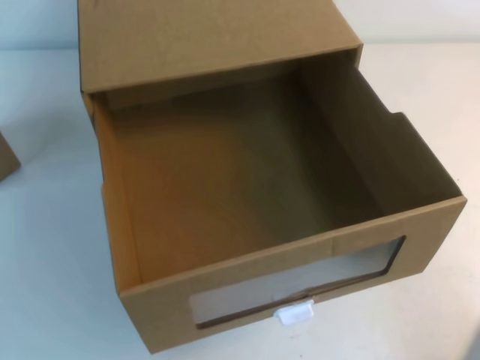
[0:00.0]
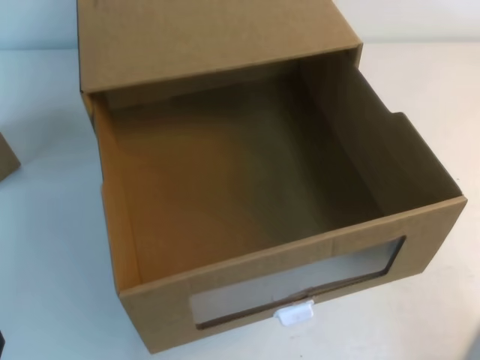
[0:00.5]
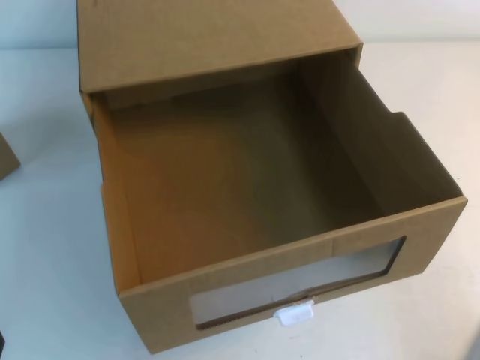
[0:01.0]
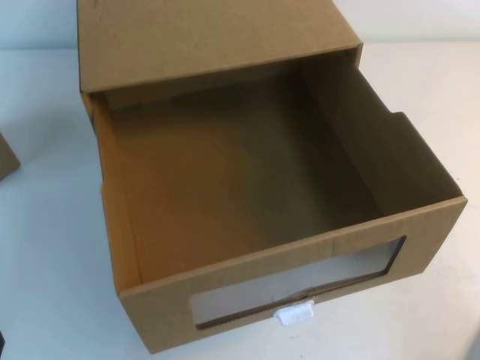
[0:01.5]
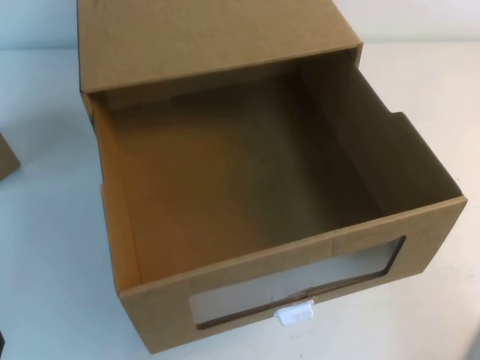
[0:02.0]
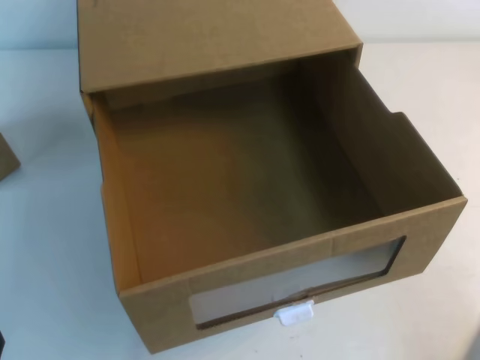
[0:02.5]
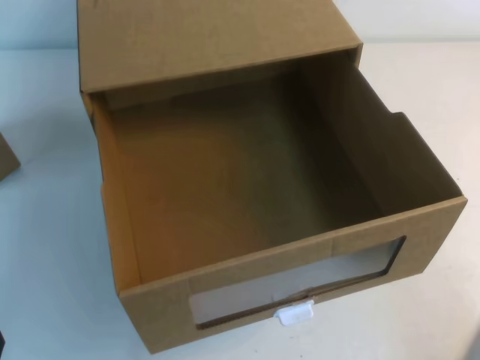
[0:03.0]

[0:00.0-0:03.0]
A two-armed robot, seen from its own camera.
Task of the whole recording: open the shoebox on the table.
1.5 to 3.0 s: Neither gripper changes place.

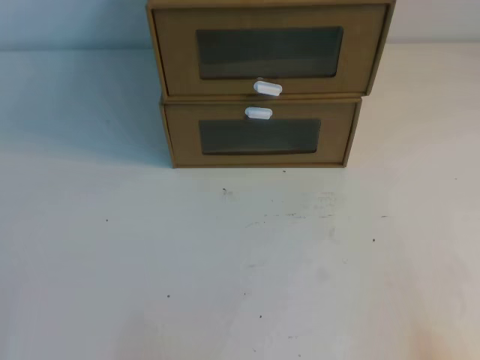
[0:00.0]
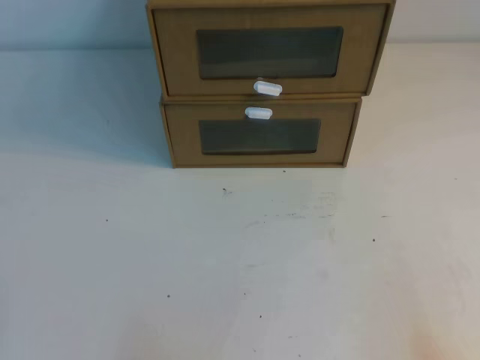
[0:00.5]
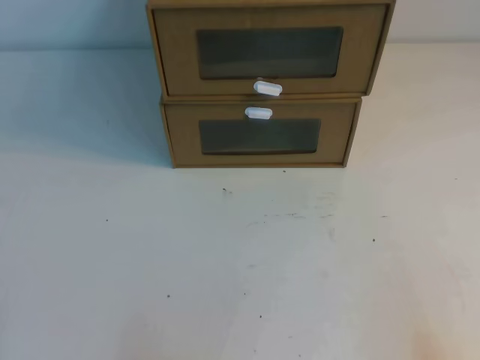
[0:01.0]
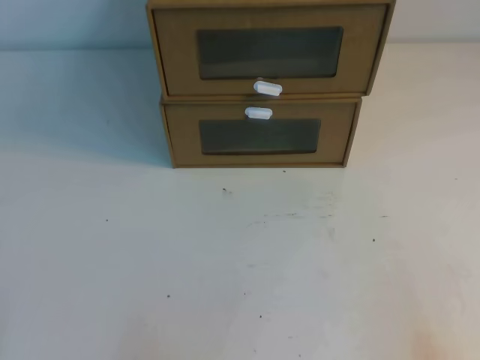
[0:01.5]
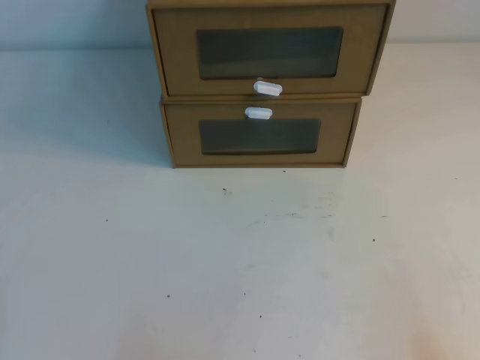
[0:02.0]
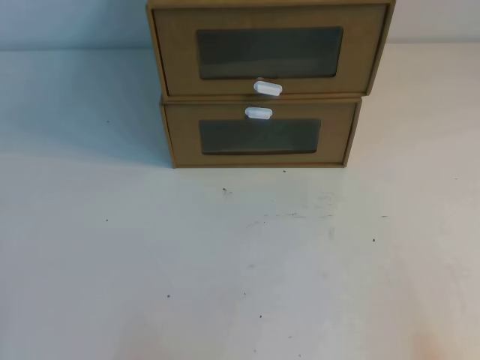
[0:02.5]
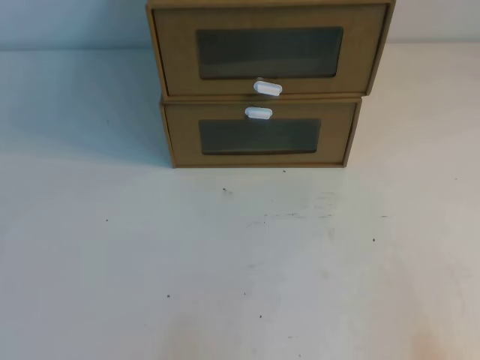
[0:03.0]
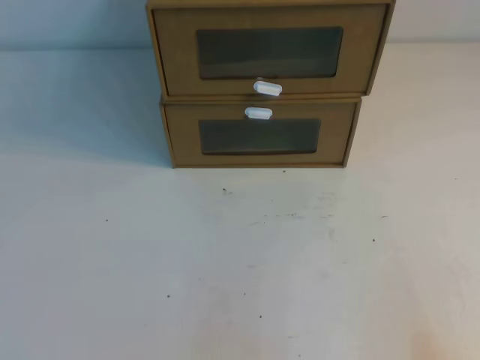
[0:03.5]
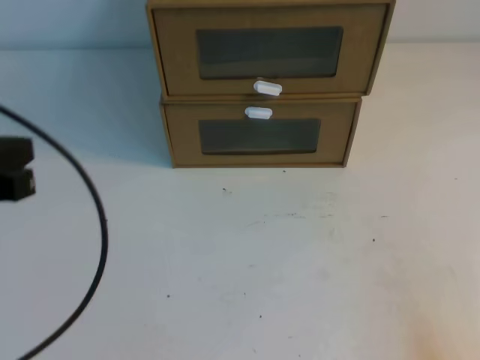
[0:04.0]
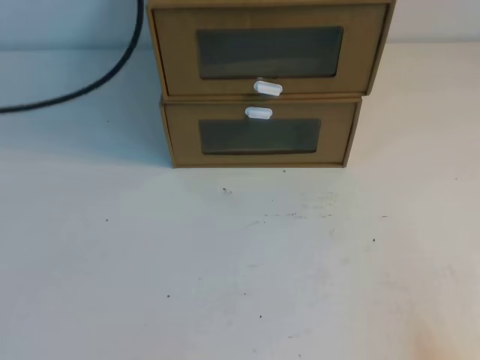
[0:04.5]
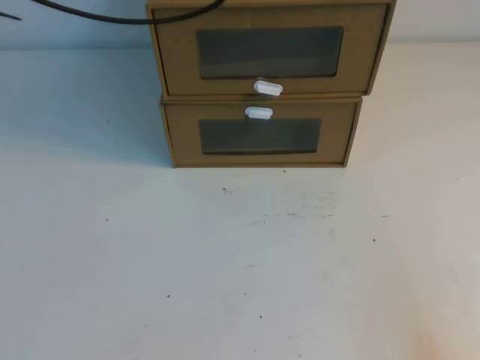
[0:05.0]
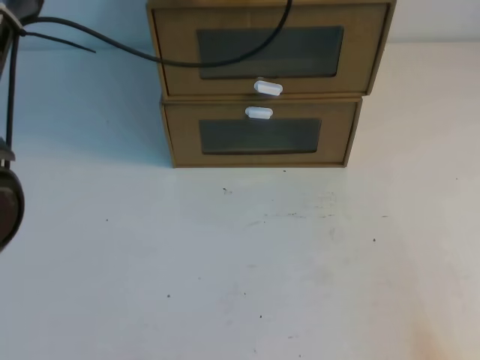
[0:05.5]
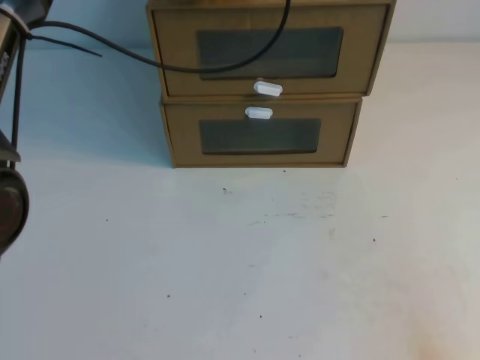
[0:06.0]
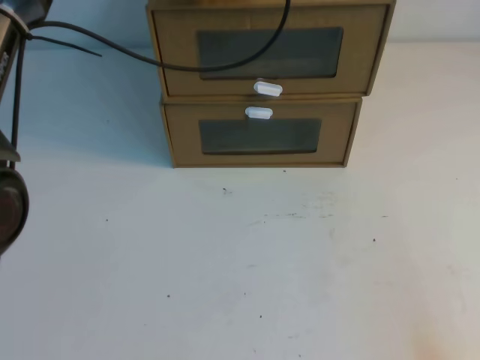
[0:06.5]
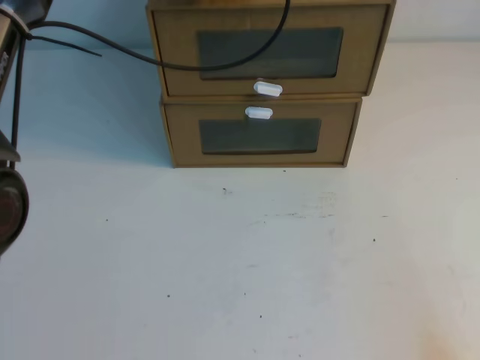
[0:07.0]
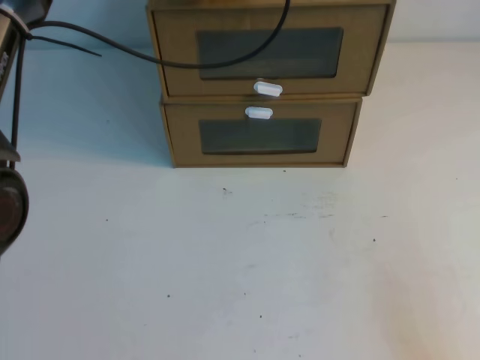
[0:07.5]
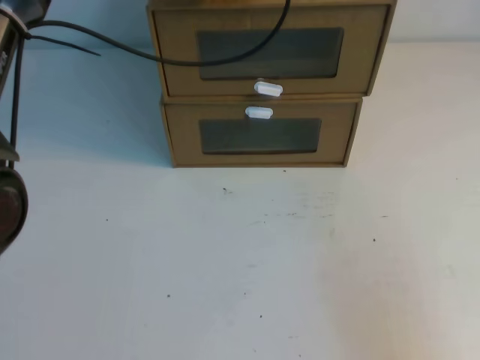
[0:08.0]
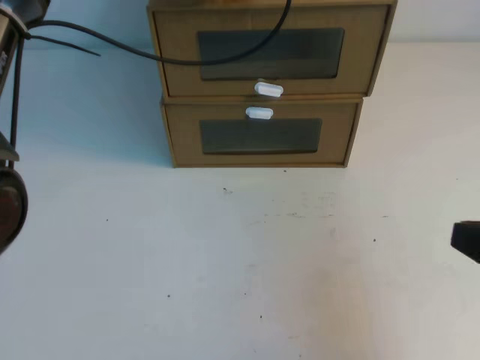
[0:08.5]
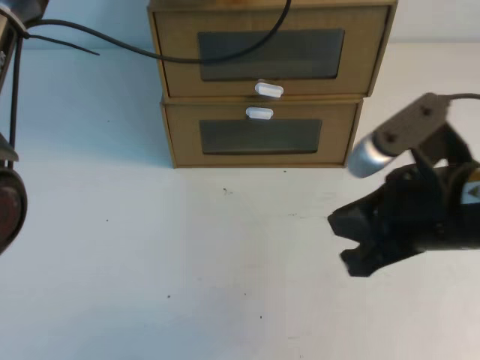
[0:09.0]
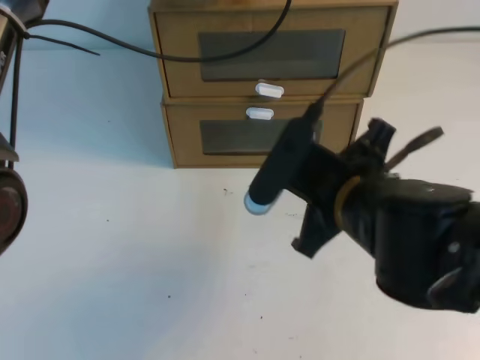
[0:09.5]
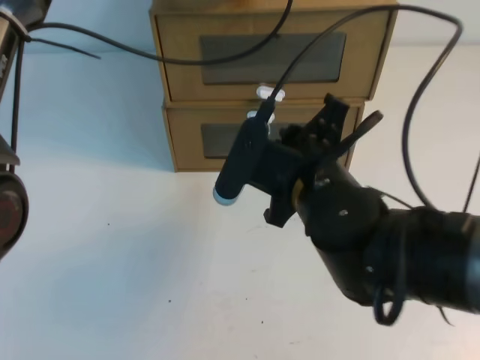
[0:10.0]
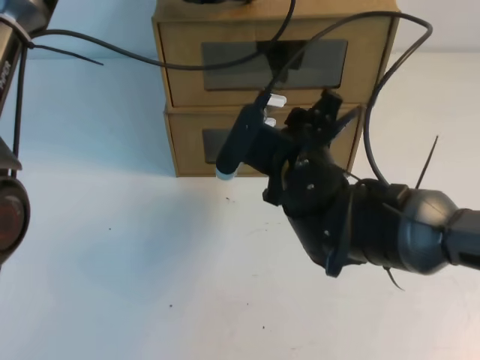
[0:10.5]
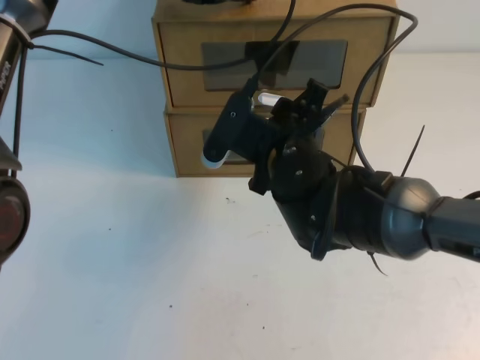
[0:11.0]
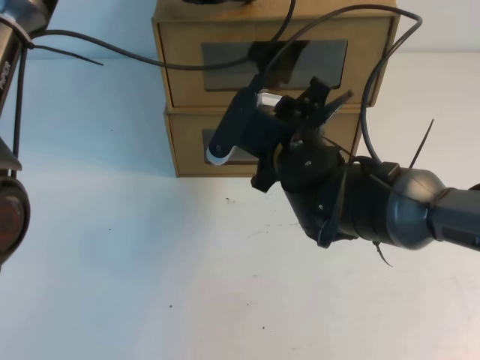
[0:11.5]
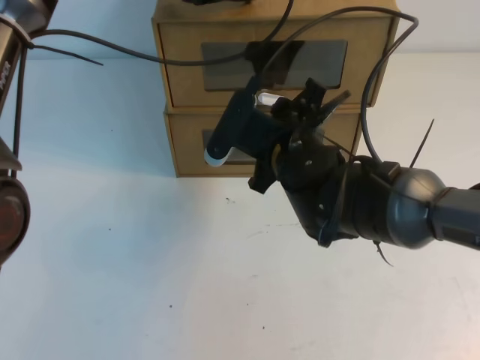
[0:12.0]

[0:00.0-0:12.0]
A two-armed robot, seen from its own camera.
Task of the whole recording: open the shoebox on the table.
2.0 to 4.0 s: The left gripper shifts roughly 15 cm upward and forward.
4.0 to 6.0 s: The left gripper moves forward and to the right, roughly 35 cm.
8.0 to 10.0 s: The right gripper goes roughly 30 cm to the left and forward.
10.0 to 12.0 s: The right gripper travels forward by approximately 10 cm, and opens up.

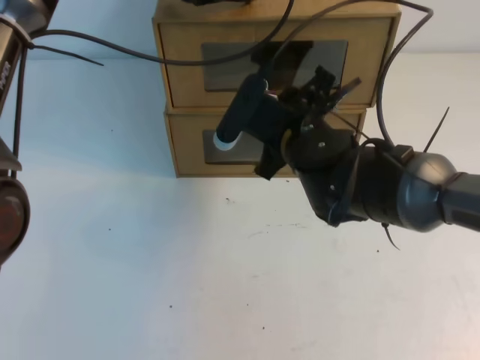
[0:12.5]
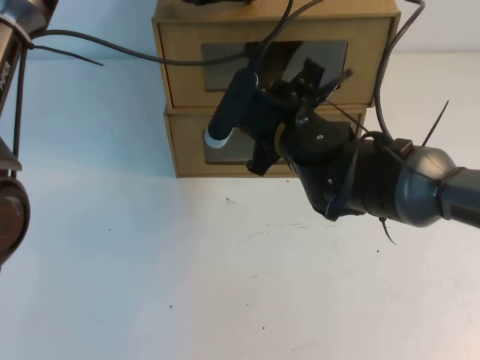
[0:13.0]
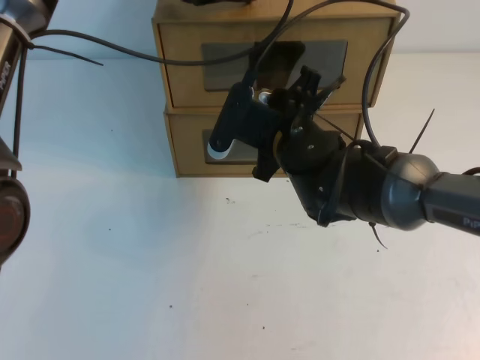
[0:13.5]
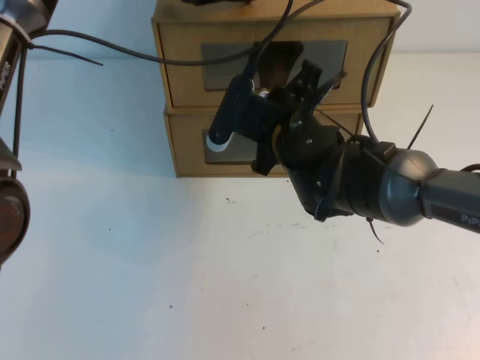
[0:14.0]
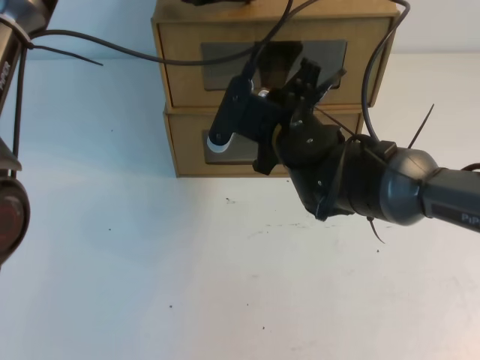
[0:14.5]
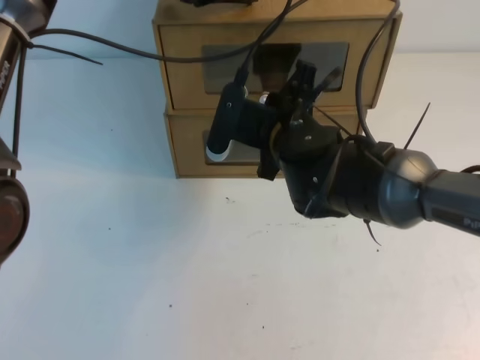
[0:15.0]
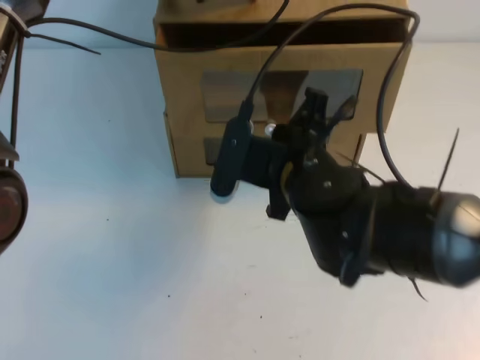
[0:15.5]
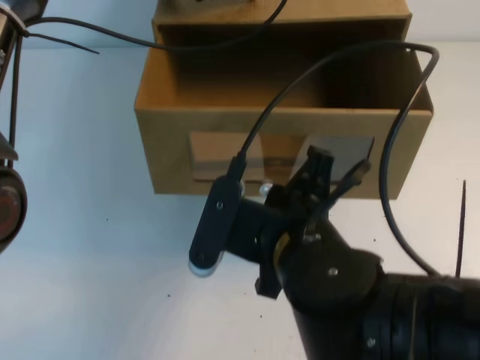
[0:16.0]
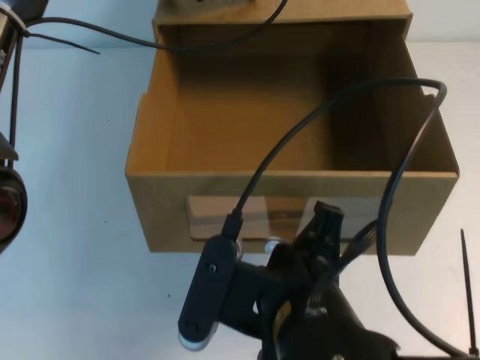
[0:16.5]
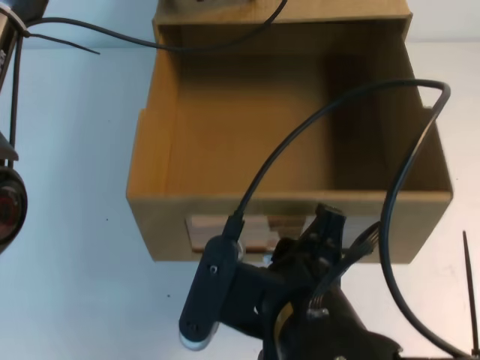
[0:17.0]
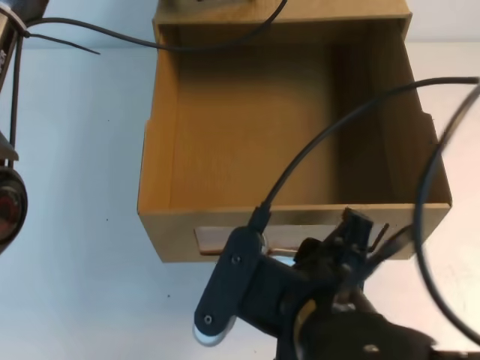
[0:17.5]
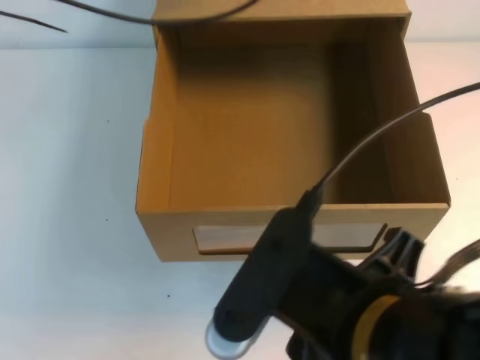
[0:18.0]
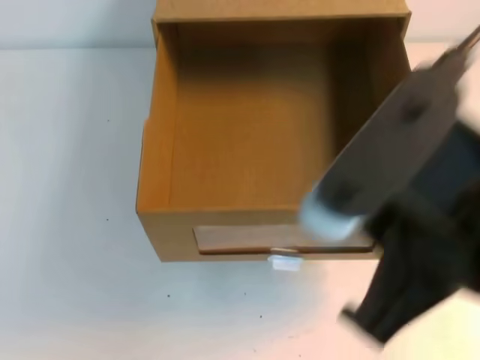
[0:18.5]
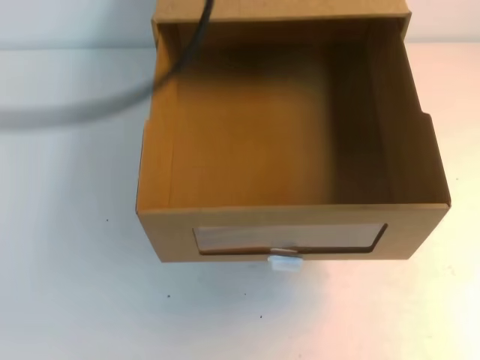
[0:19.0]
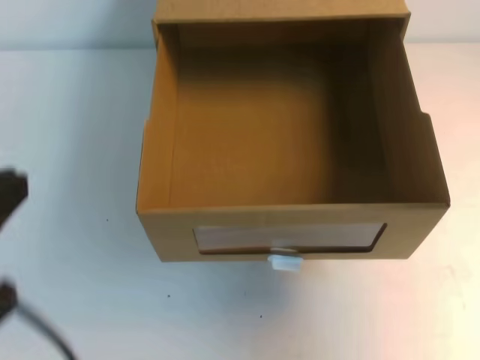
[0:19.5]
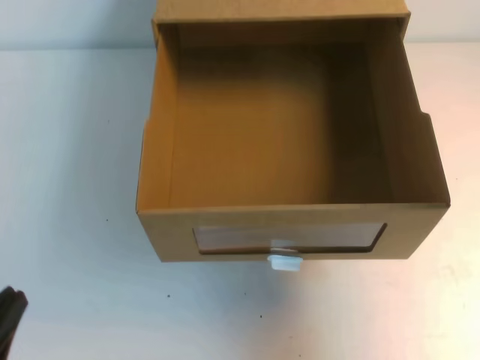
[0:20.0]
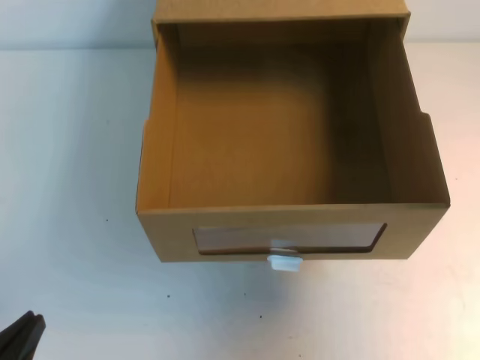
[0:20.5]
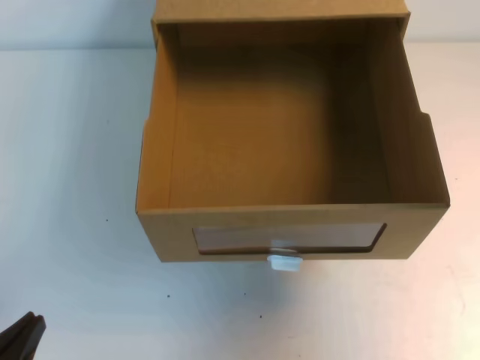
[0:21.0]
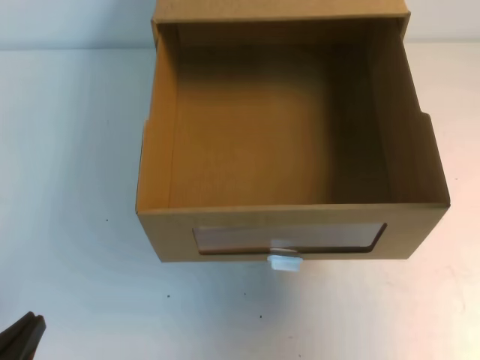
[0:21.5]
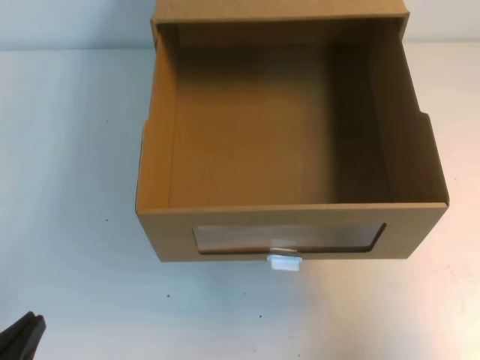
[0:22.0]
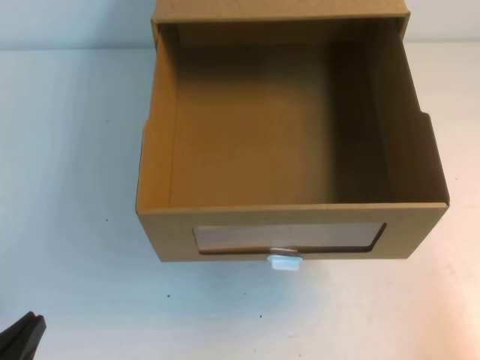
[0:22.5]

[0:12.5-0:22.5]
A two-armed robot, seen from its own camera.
Task of the whole recording: open the shoebox on the table.
12.5 to 14.5 s: The right gripper closes up.
14.5 to 16.5 s: The right gripper travels backward by approximately 20 cm.
16.5 to 18.5 s: The right gripper heads upward, to the right and backward, covering about 15 cm, and opens up; the left gripper is displaced upward and backward by roughly 15 cm.
18.5 to 20.5 s: The right gripper heads to the right and forward, covering roughly 20 cm, and closes up. Meanwhile the left gripper is displaced downward, backward and to the left by roughly 50 cm.
20.5 to 22.5 s: The right gripper goes about 25 cm downward and backward.

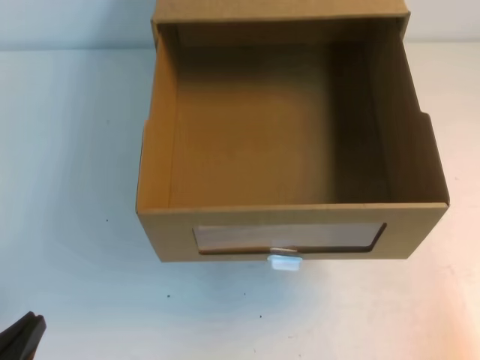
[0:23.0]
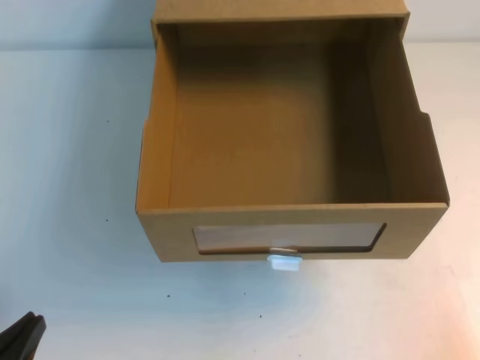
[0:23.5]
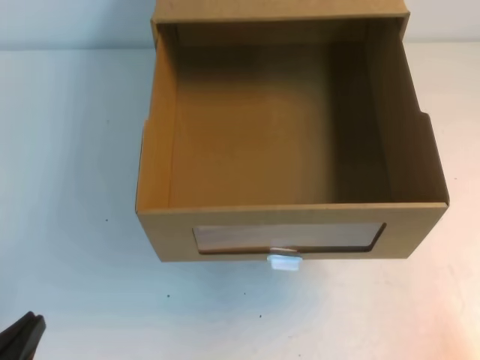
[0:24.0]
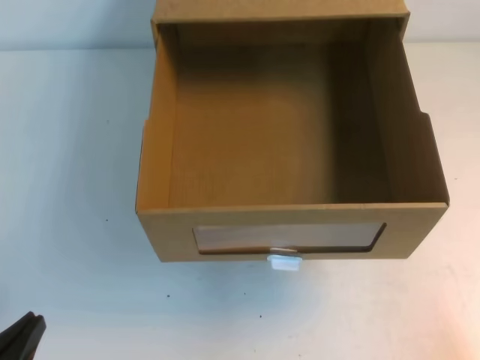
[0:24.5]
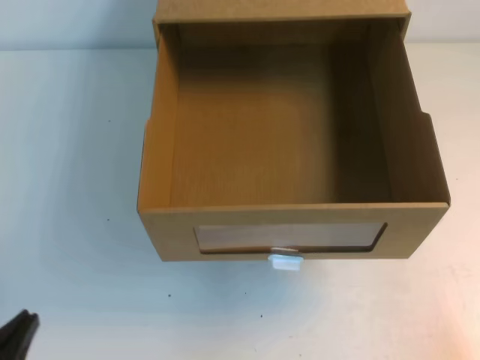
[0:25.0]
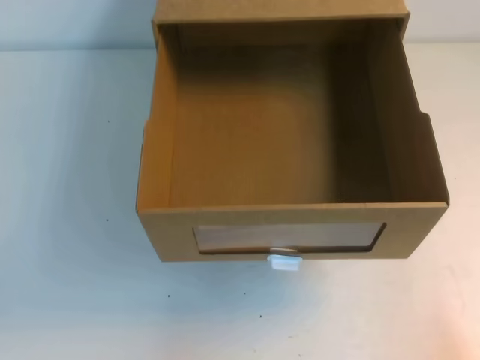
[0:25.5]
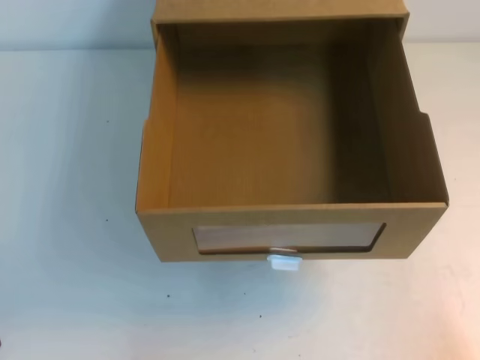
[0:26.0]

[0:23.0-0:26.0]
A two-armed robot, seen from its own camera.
Task of the whole recording: open the shoebox on the table.
Step, 23.0 to 26.0 s: Open the shoe box.
24.5 to 26.0 s: The grippers make only small movements.
